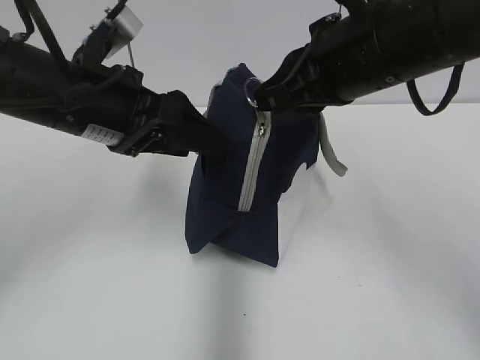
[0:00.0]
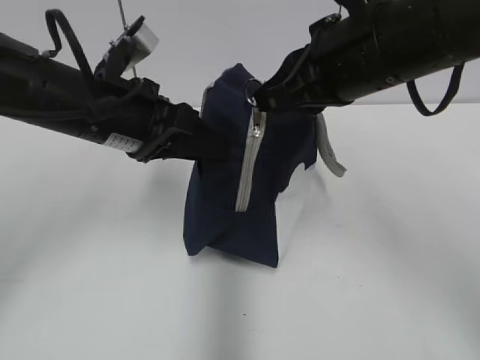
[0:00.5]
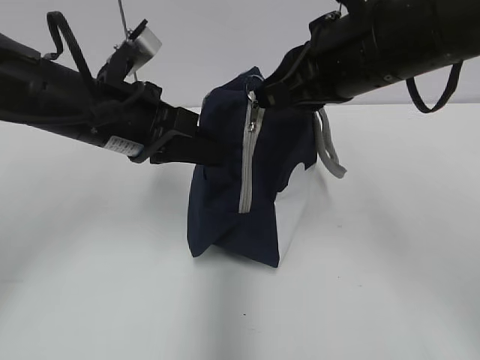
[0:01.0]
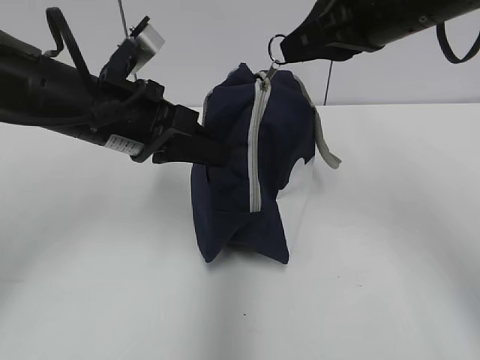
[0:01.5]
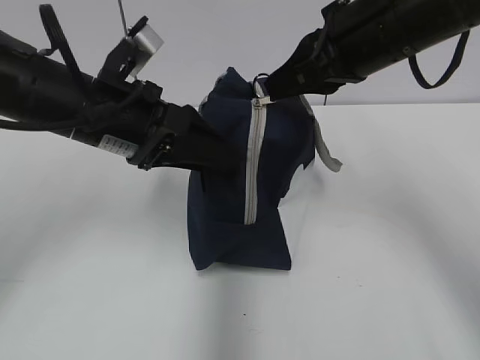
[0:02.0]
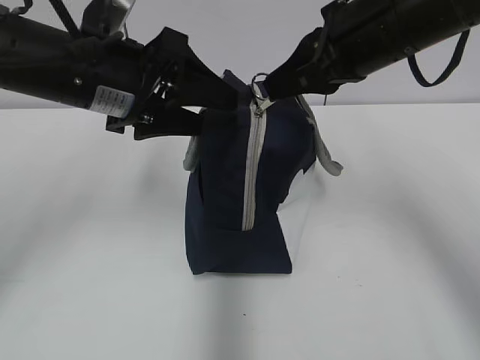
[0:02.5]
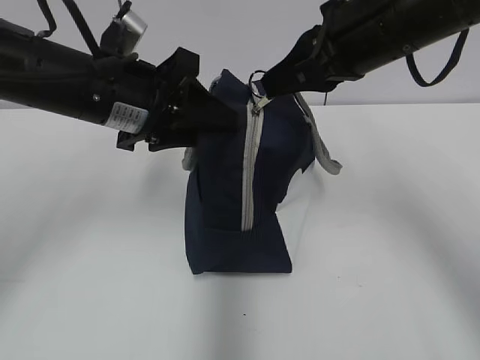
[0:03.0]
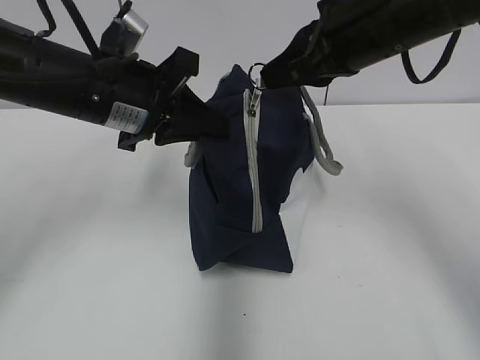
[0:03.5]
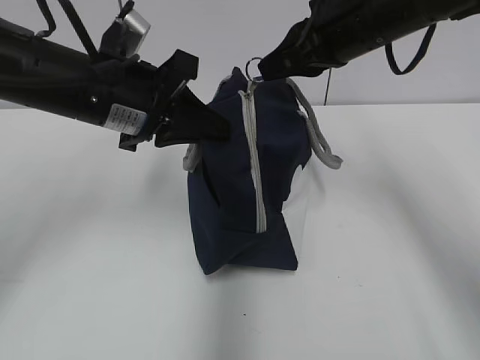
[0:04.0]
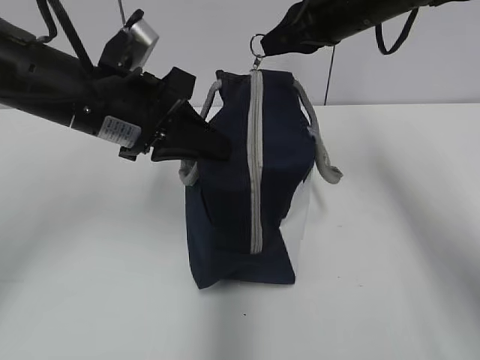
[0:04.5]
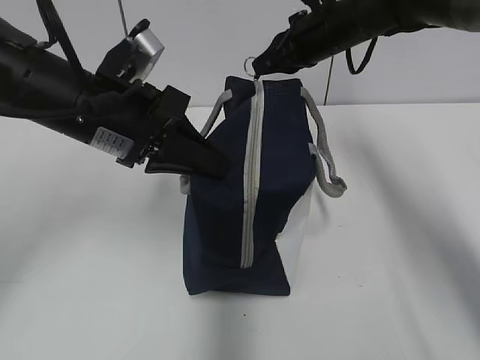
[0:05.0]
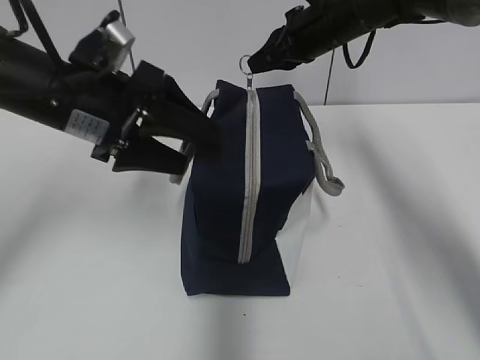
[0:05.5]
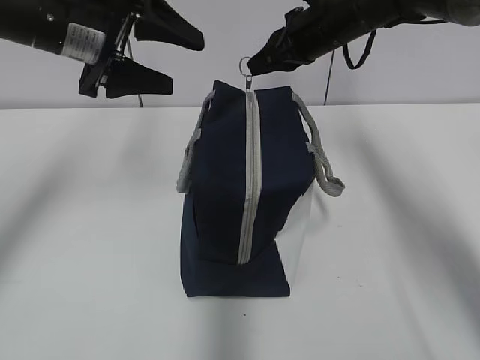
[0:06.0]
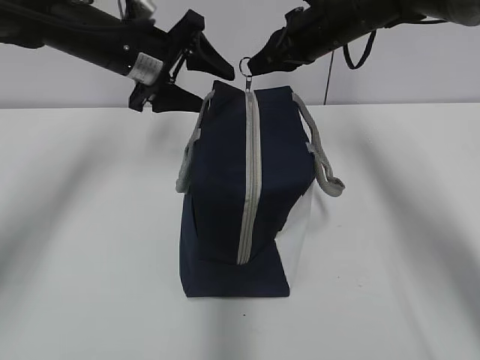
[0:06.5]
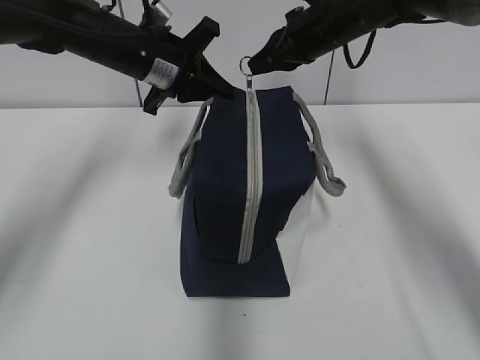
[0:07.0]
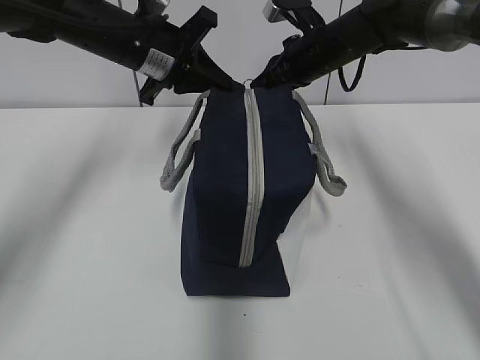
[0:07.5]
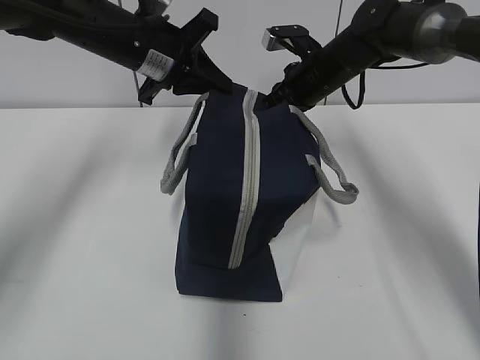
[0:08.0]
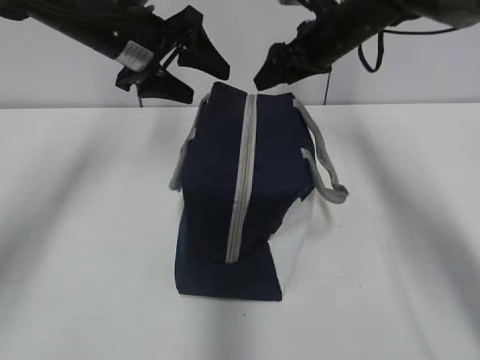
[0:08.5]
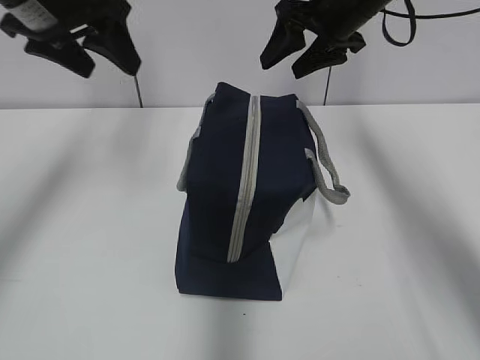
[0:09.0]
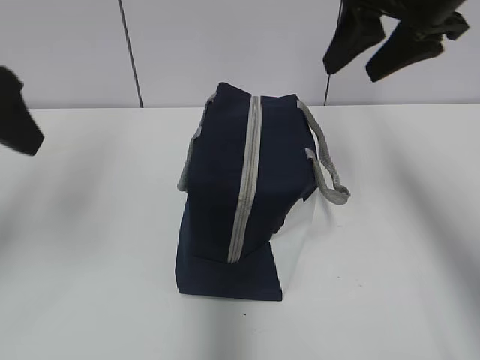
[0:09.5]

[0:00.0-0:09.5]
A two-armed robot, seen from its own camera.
0:00.0 to 0:02.0: The left gripper closes, then opens again.
0:02.0 to 0:04.0: The right gripper shifts some 5 cm forward, while the left gripper closes up.
0:04.0 to 0:05.5: The left gripper opens. The right gripper is displaced forward by some 10 cm.
0:05.5 to 0:07.5: The left gripper travels forward by roughly 15 cm, and closes its fingers.
0:07.5 to 0:09.5: The left gripper shifts about 20 cm backward and to the left, and opens up; the right gripper heads backward and upward, covering some 20 cm, and opens its fingers.

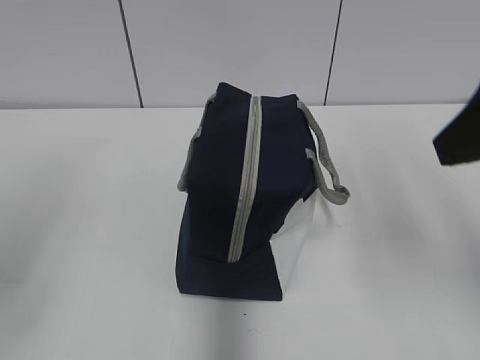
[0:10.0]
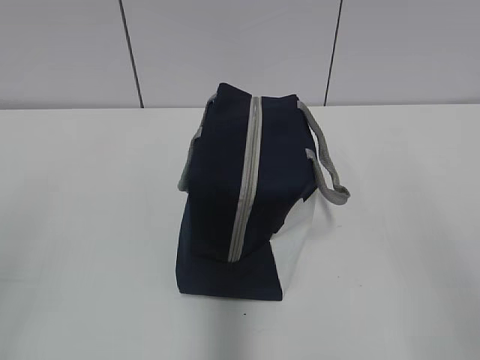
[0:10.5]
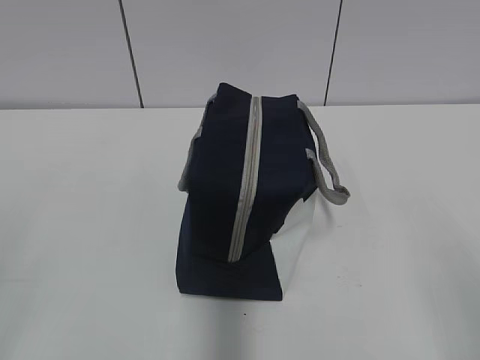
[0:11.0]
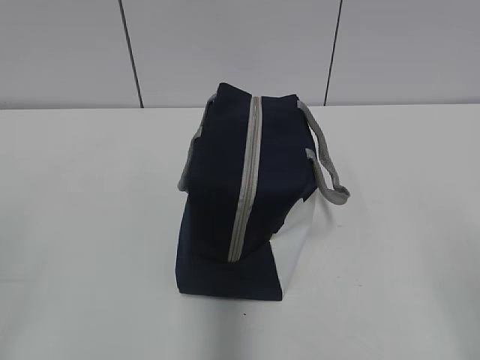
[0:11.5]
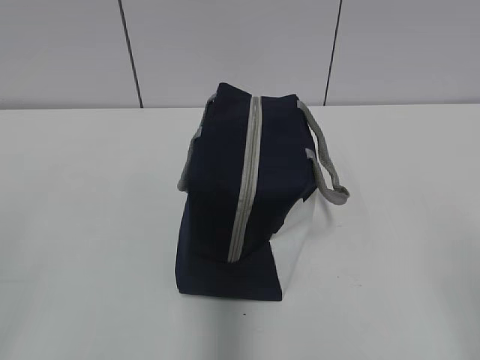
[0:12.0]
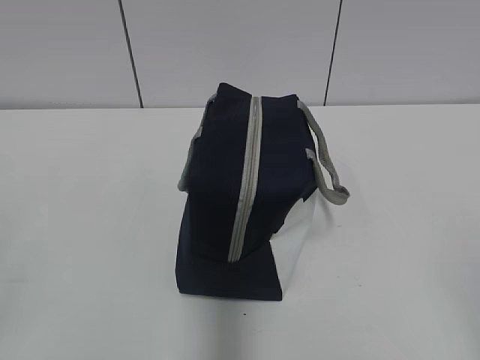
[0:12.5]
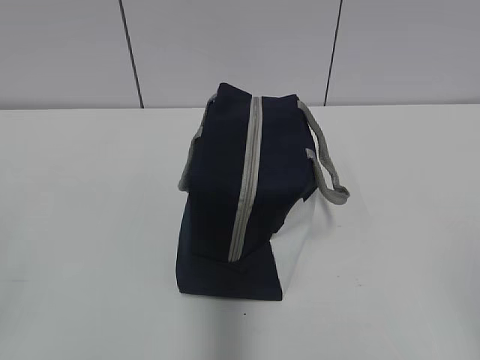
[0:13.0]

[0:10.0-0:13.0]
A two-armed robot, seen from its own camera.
0:10.0 to 0:11.5: The right gripper goes some 15 cm backward and downward.

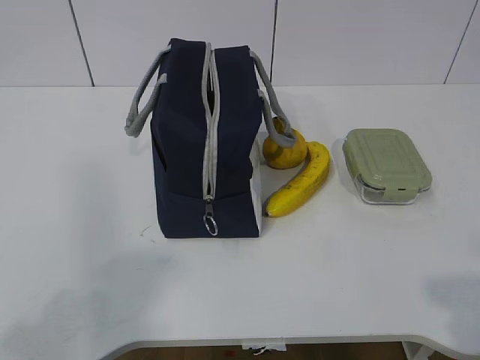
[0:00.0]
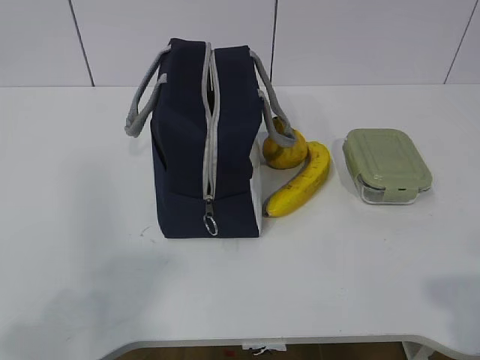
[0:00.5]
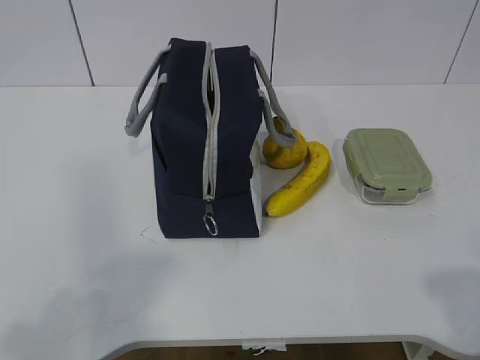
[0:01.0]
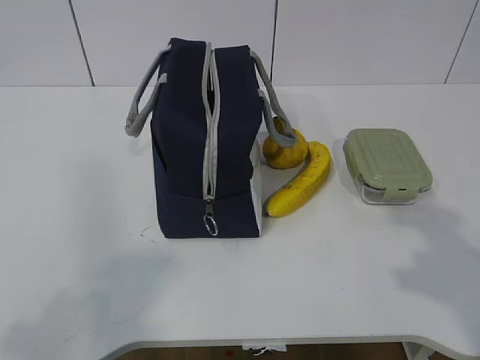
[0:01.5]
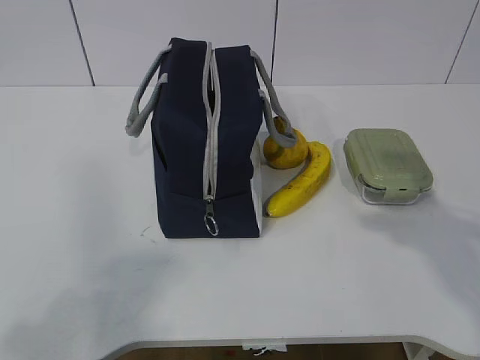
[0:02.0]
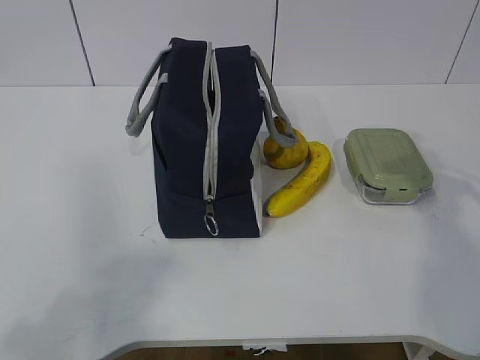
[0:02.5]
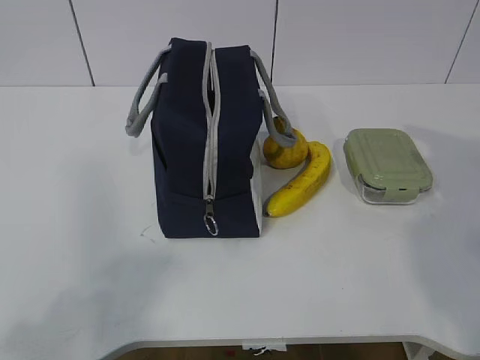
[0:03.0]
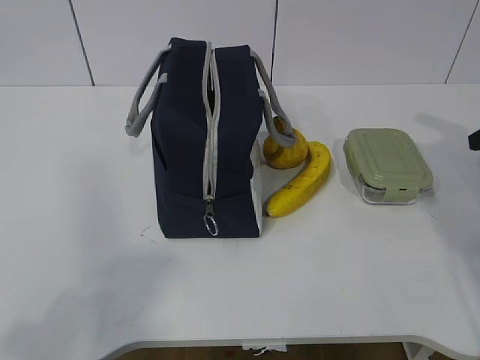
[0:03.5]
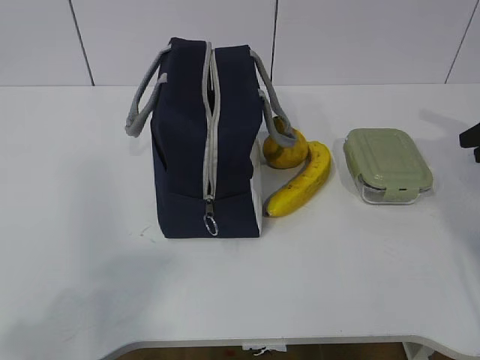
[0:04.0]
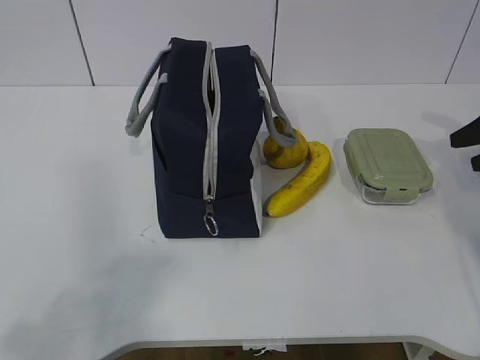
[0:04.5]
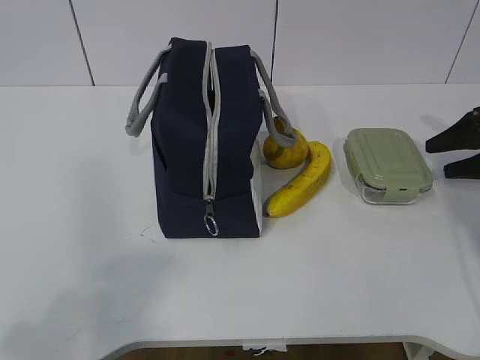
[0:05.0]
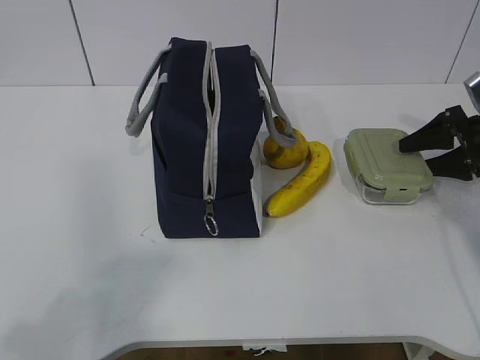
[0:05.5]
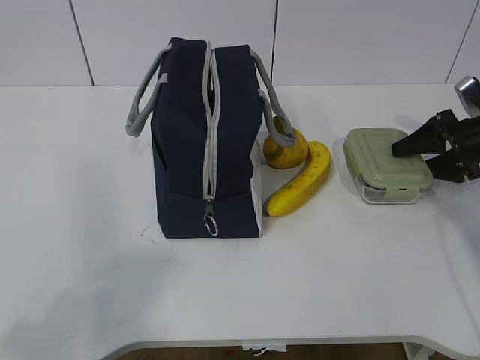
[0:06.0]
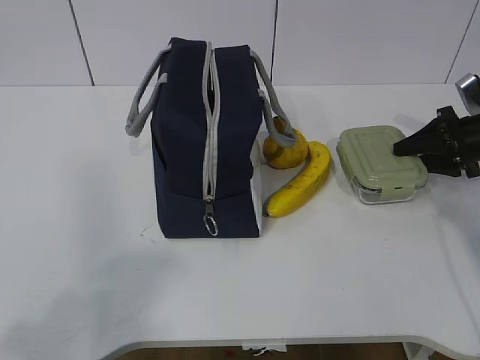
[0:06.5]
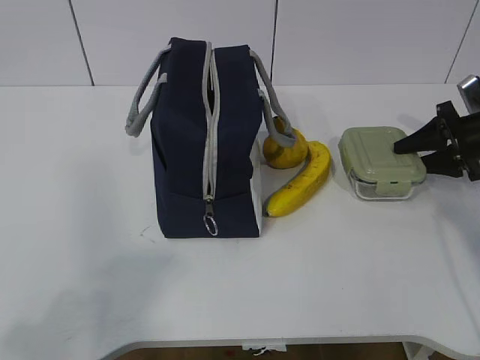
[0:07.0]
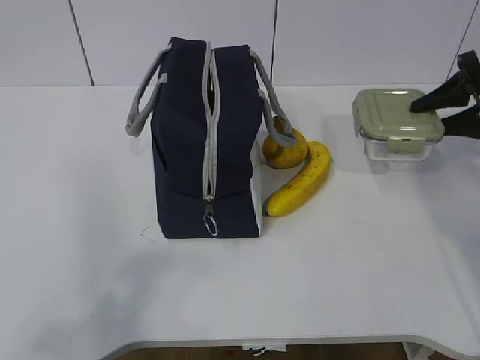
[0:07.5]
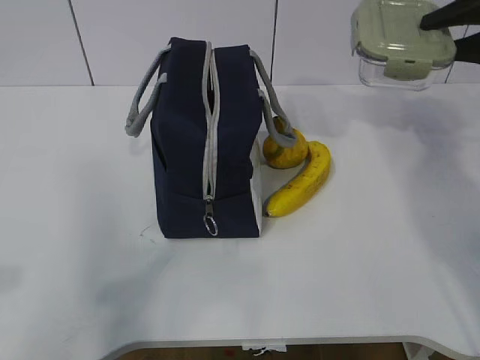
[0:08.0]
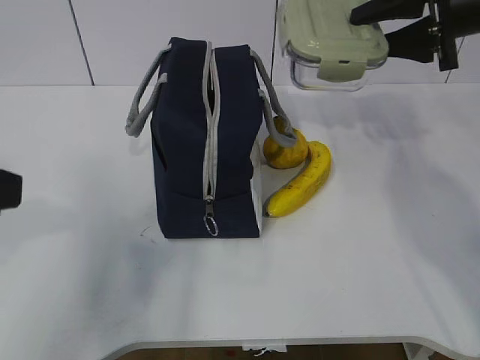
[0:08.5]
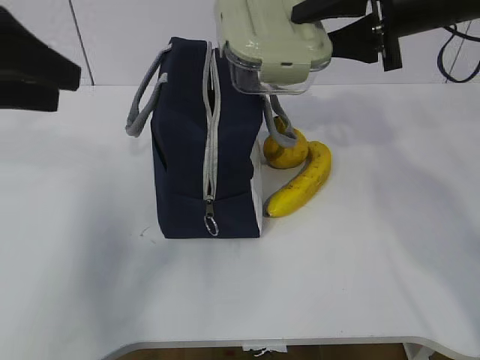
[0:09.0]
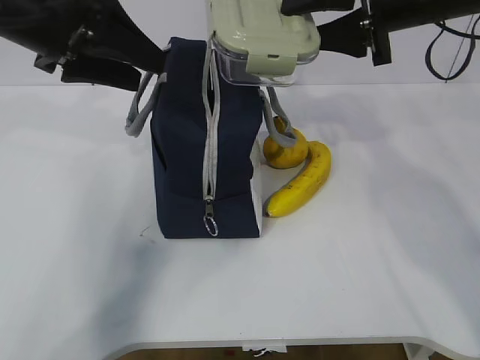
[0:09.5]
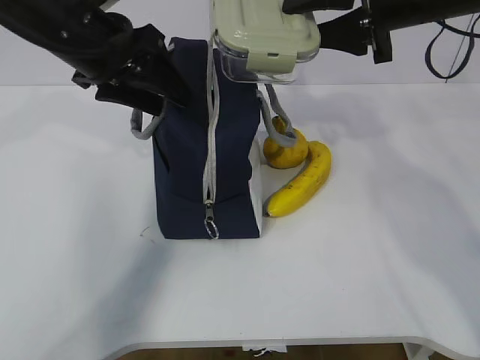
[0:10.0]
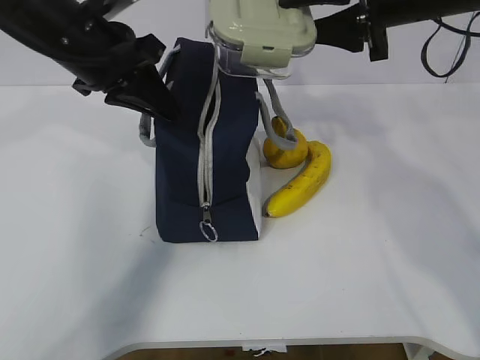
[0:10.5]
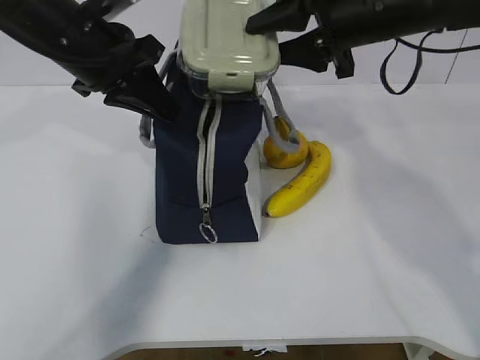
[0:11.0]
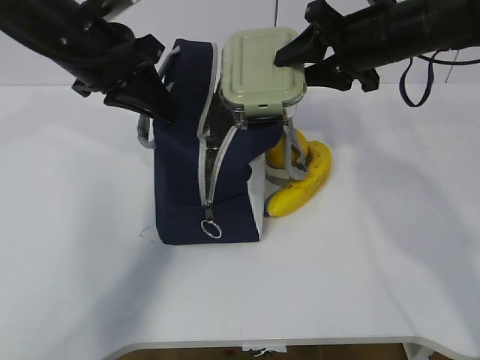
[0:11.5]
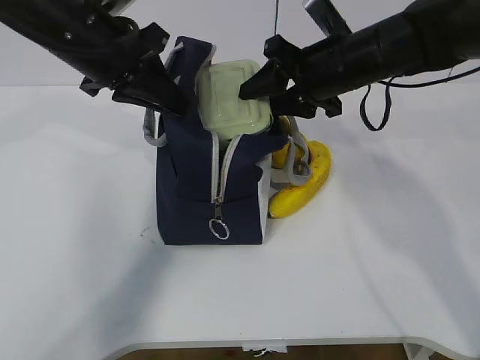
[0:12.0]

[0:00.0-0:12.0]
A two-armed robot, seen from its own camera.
Step, 0:00.0 to 0:05.5: Grab the lunch box with your right hand.
Step, 0:06.0 to 0:09.0: Grab the lunch bag with your left hand.
0:02.0 to 0:04.0: The right gripper heads forward, to the right and downward, covering some 30 cm.
0:04.0 to 0:06.0: The right gripper shifts some 10 cm downward and forward.
0:06.0 to 0:08.0: The right gripper shifts approximately 20 cm upward.
0:08.0 to 0:10.0: The right gripper shifts roughly 15 cm to the left. The left gripper heads forward, covering some 35 cm, and opens its fingers.
0:10.0 to 0:12.0: The left gripper closes; the right gripper goes about 10 cm downward and to the left.

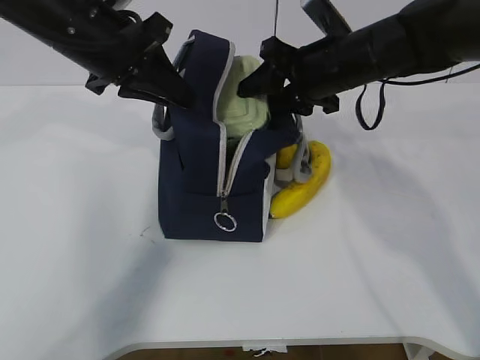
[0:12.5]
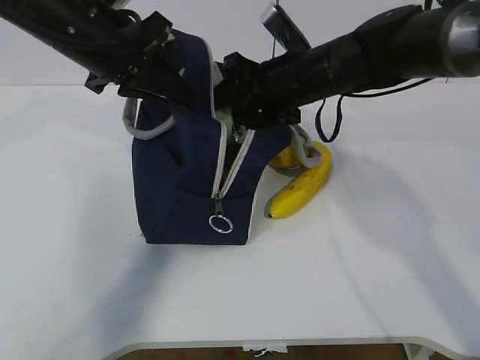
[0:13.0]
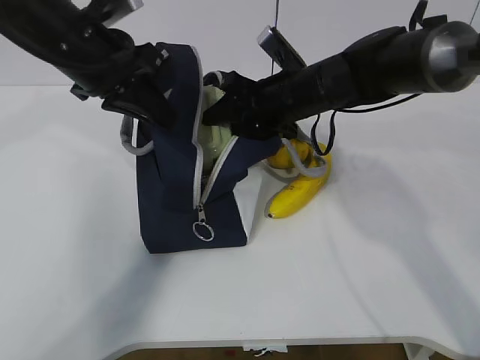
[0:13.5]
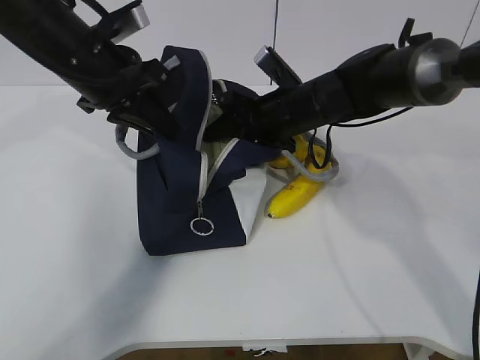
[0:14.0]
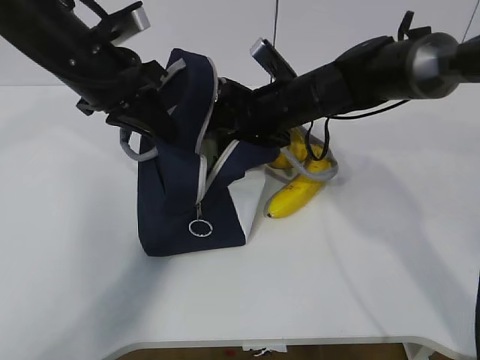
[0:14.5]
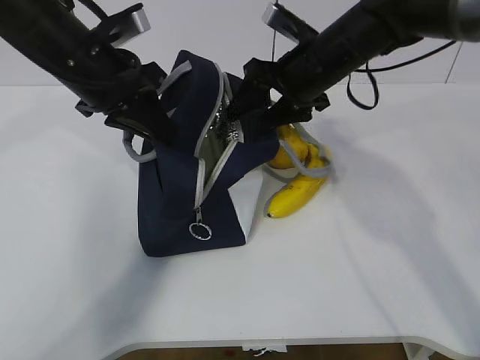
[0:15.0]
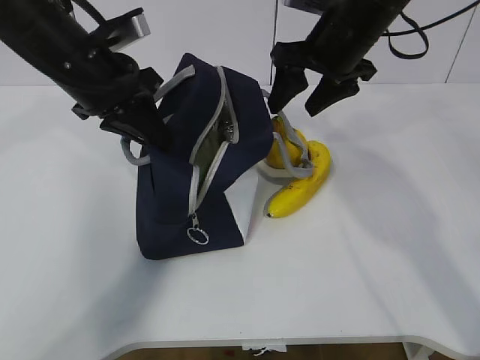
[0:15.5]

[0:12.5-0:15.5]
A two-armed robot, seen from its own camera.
Step, 0:12.5 to 0:15.0: Grab the banana with your right hand.
0:12.5 to 0:14.0: The right gripper is displaced downward by approximately 5 cm.
0:14.0 to 0:15.5: The right gripper goes approximately 10 cm upward and to the right.
